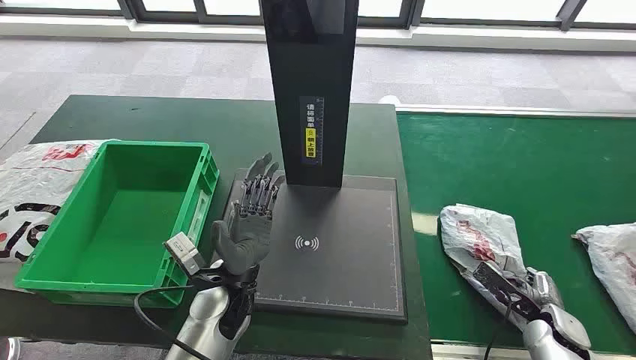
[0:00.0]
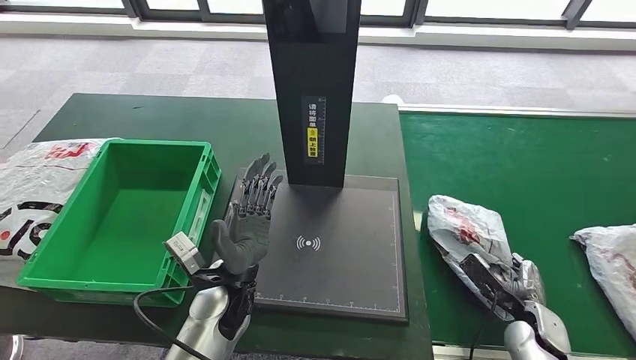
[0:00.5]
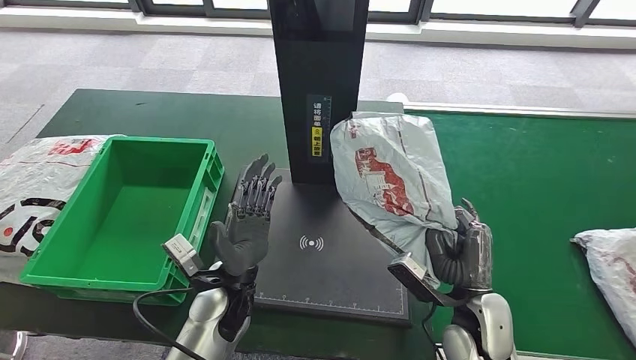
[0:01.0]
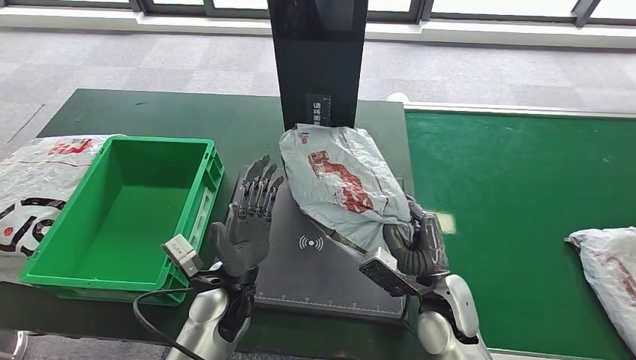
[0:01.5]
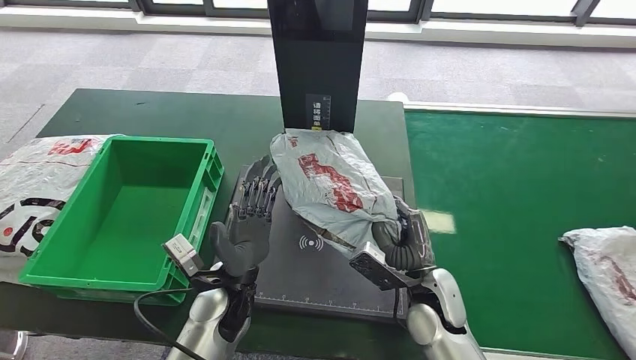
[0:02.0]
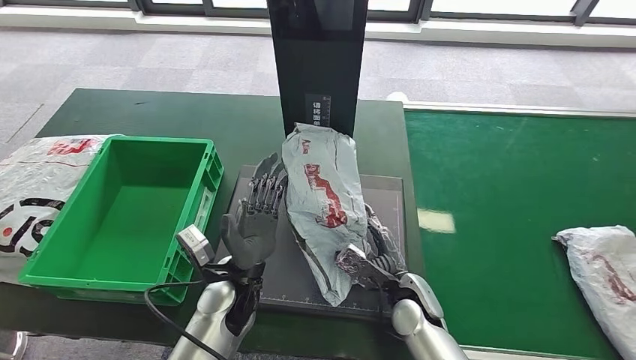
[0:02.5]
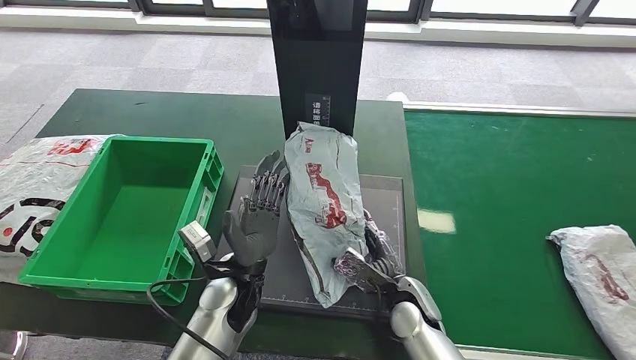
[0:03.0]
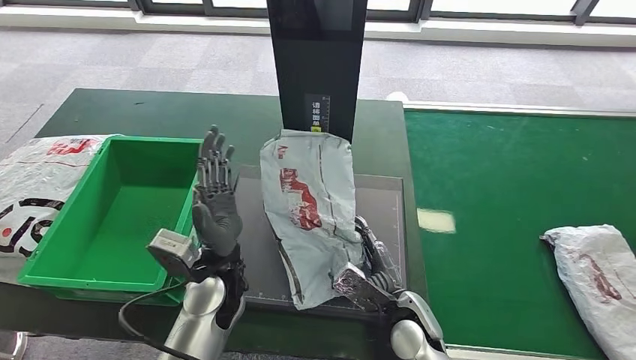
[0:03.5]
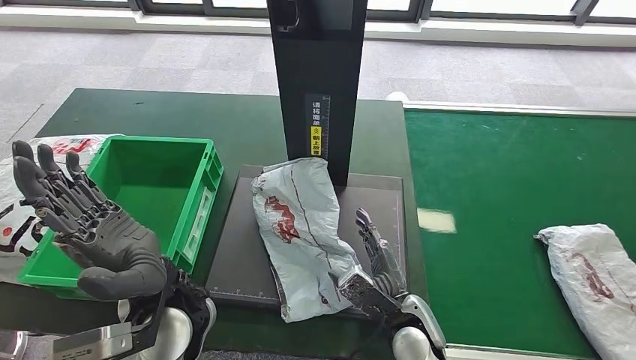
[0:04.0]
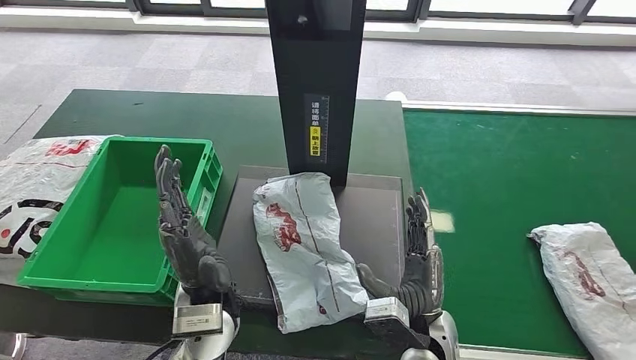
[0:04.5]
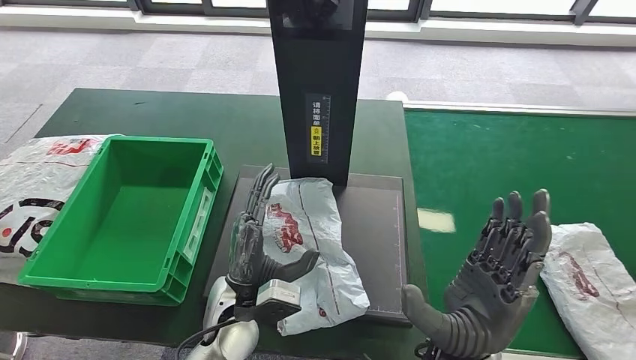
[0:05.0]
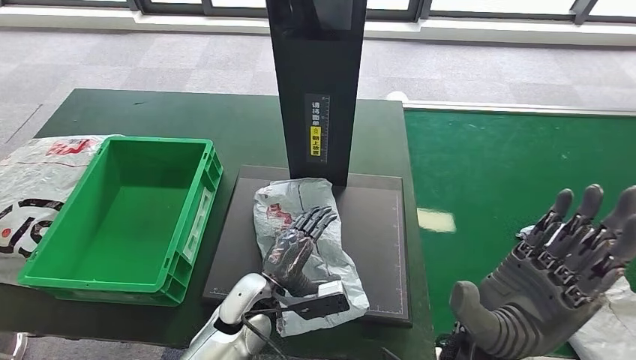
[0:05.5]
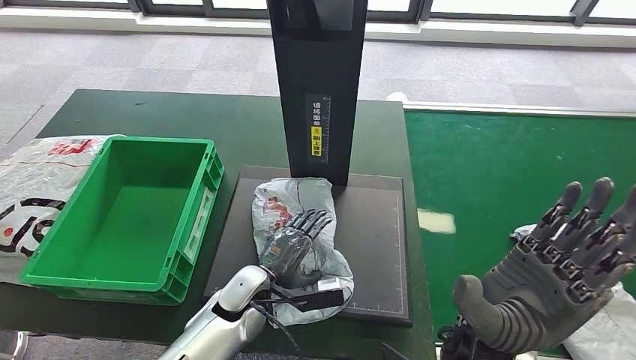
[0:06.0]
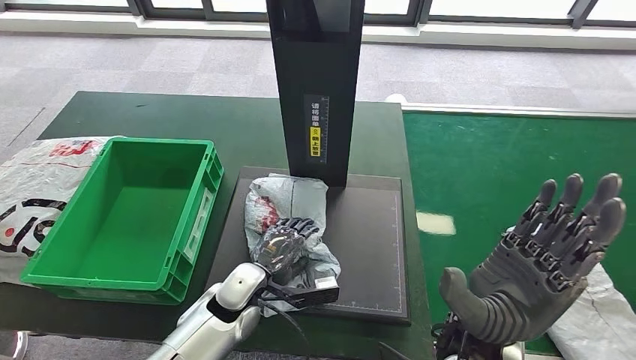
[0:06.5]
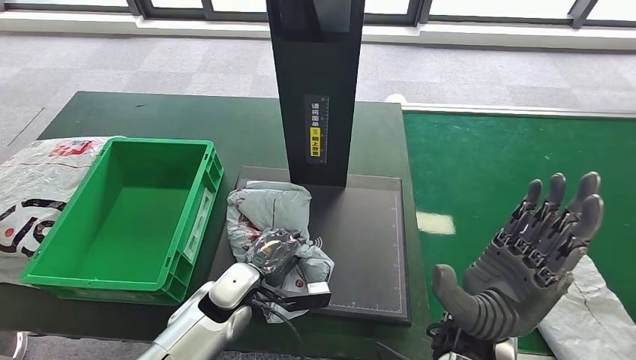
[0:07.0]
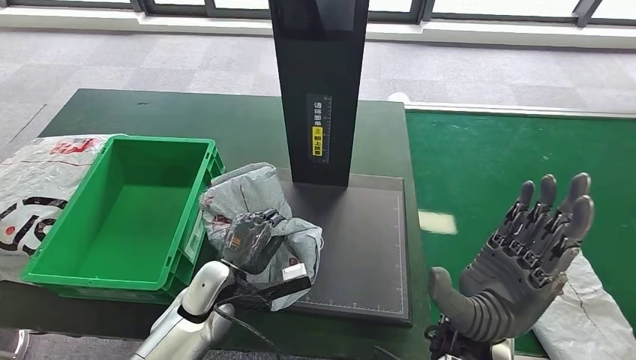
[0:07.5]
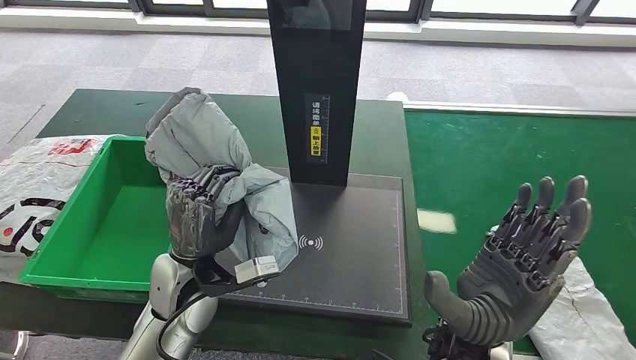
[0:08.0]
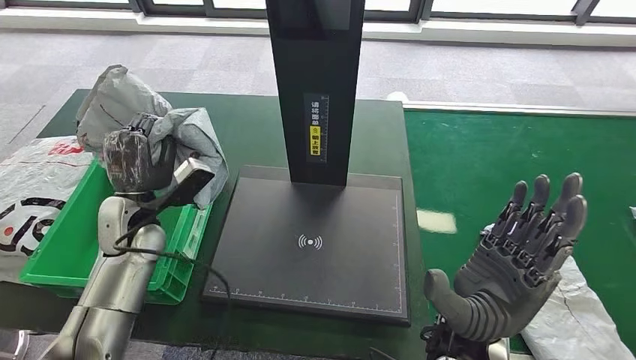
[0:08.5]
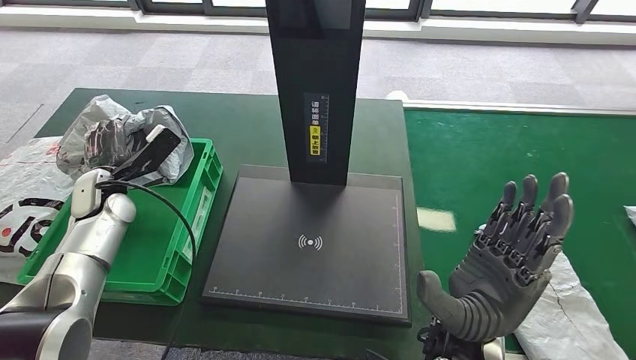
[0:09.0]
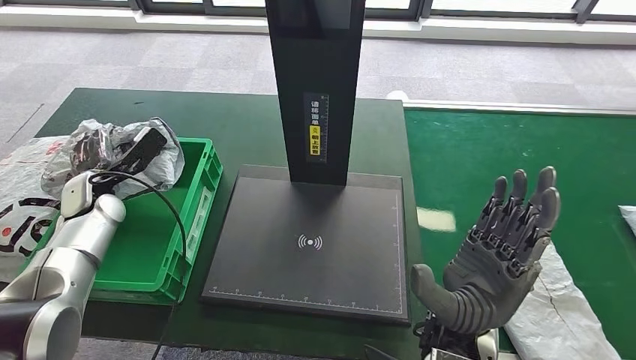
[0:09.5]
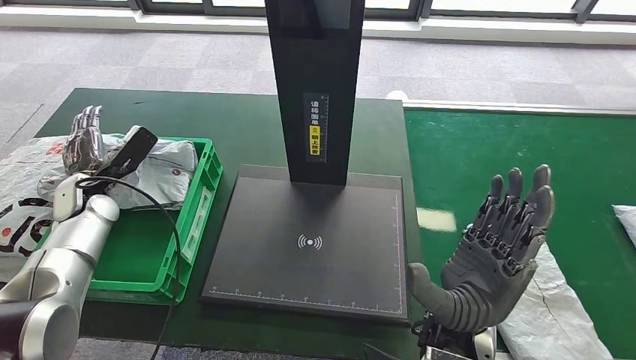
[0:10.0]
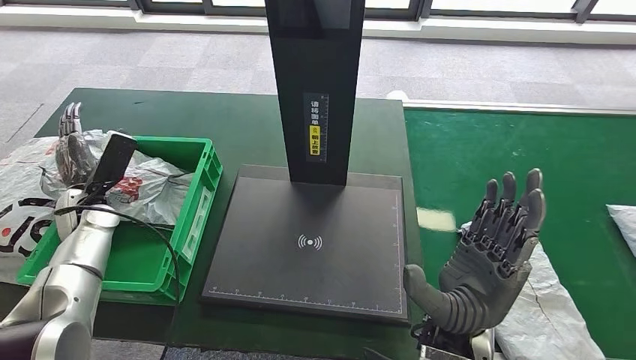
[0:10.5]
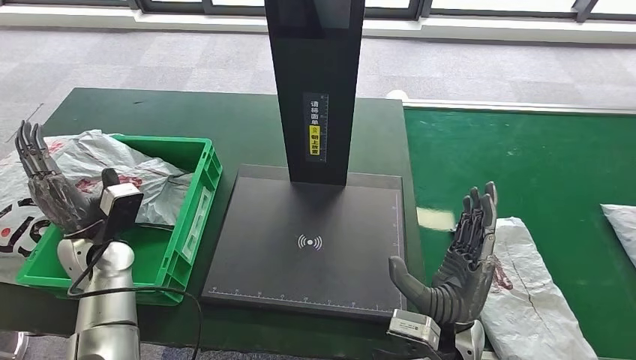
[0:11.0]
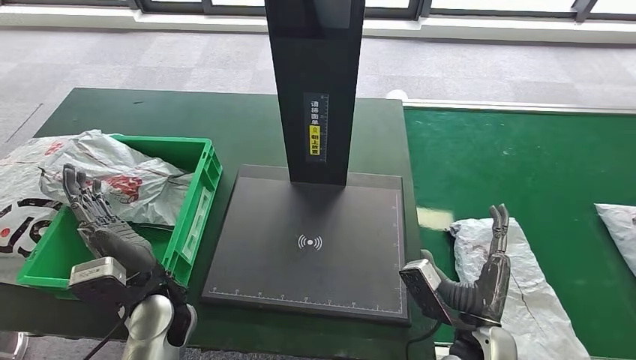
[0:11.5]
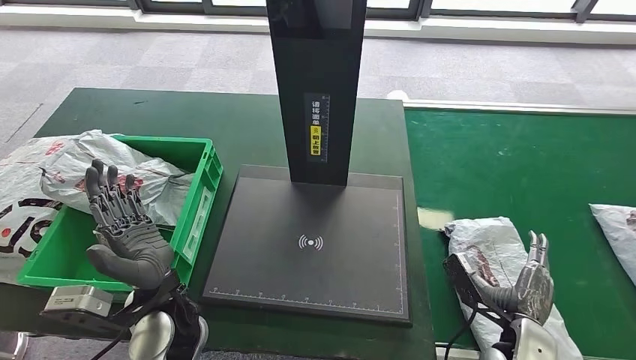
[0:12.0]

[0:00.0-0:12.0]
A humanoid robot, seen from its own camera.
Step, 0:00.0 to 0:01.0: Take the parcel off the conveyor belt.
Step, 0:01.5 to 0:04.5: Place the parcel onto the inbound machine.
Step, 0:05.0 to 0:08.0: Pick up the parcel from the inbound machine.
Step, 0:08.5 to 0:10.5: Put the parcel inside the courier box.
0:06.0 to 0:08.0: The left hand goes some 15 cm upward and to the left.

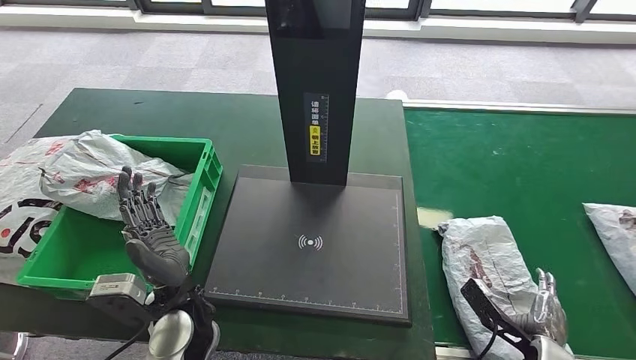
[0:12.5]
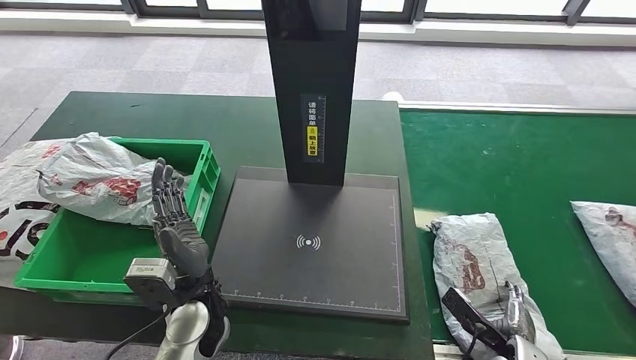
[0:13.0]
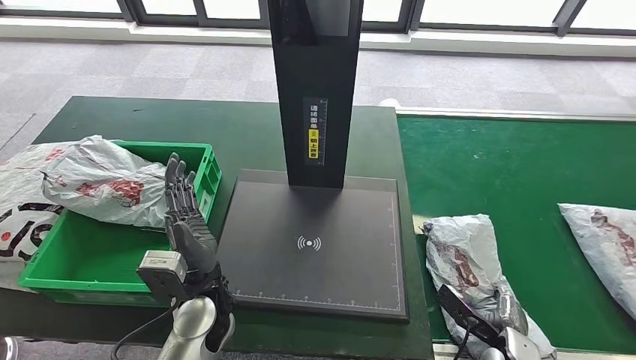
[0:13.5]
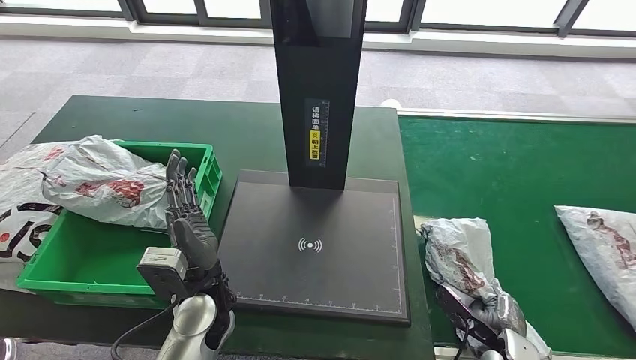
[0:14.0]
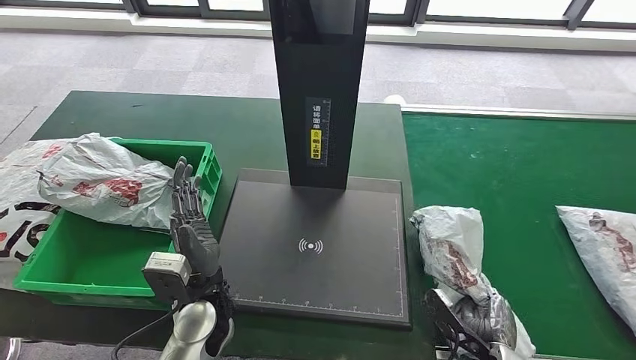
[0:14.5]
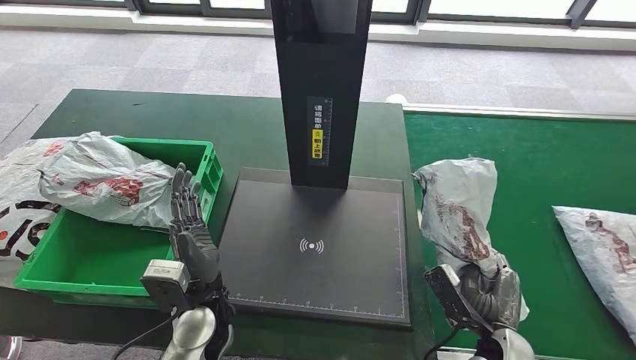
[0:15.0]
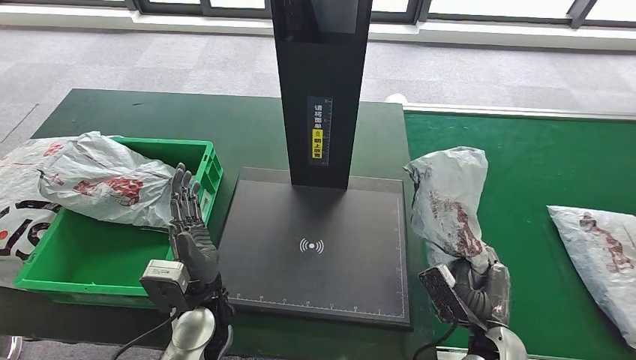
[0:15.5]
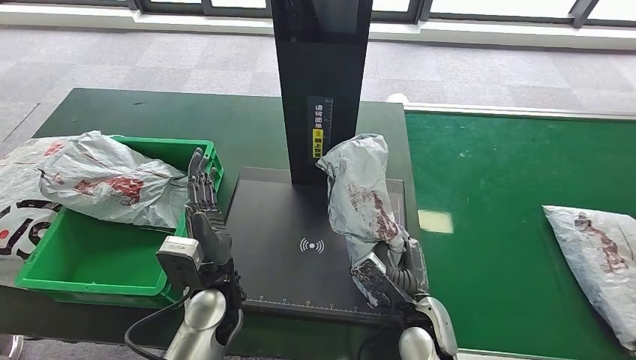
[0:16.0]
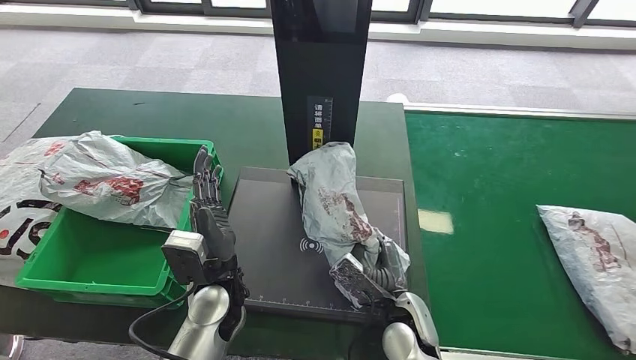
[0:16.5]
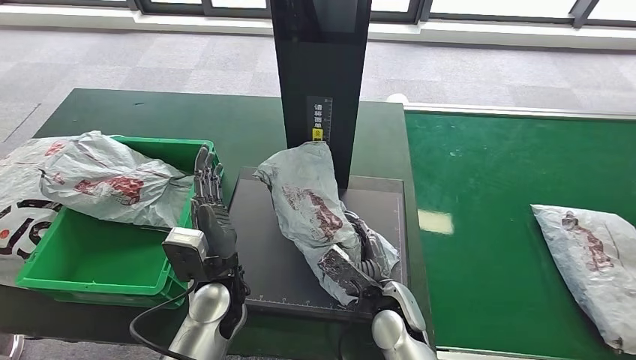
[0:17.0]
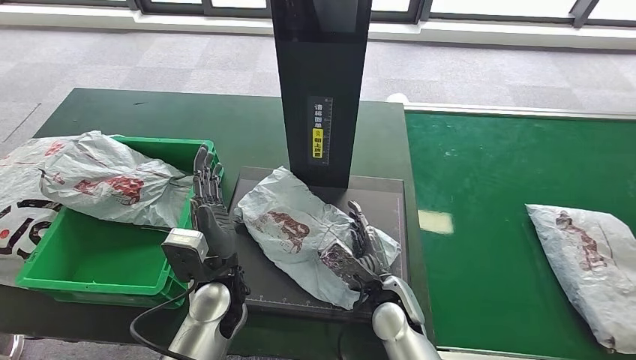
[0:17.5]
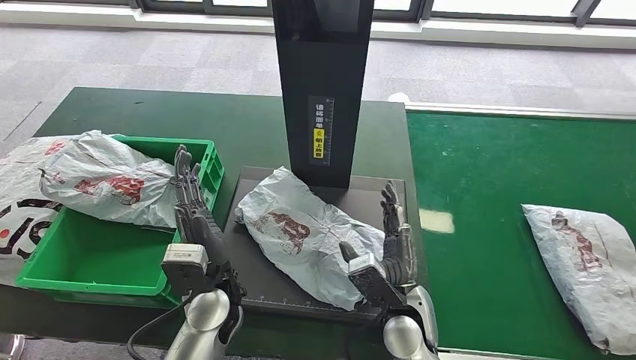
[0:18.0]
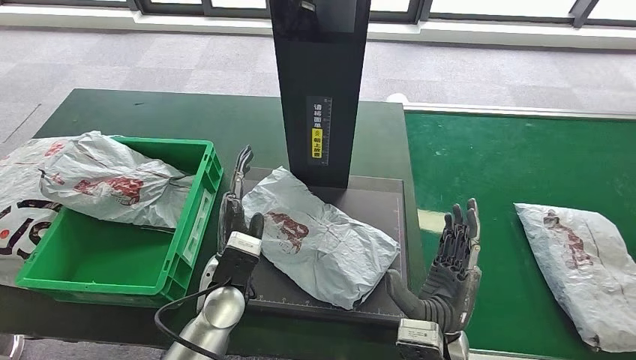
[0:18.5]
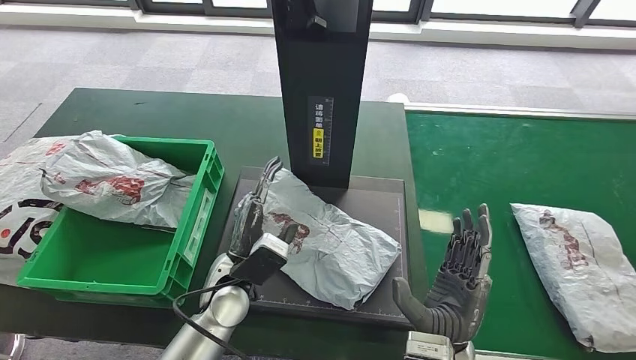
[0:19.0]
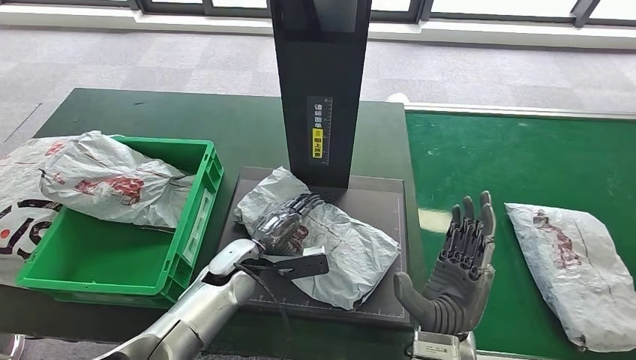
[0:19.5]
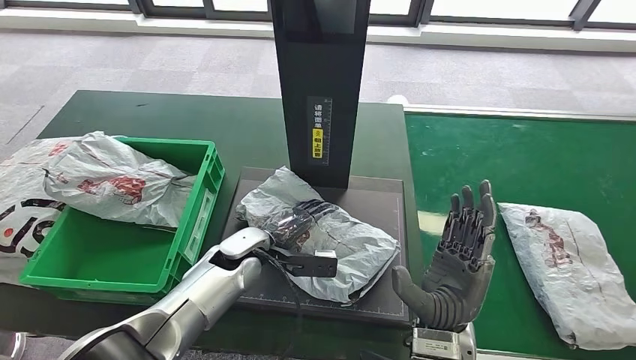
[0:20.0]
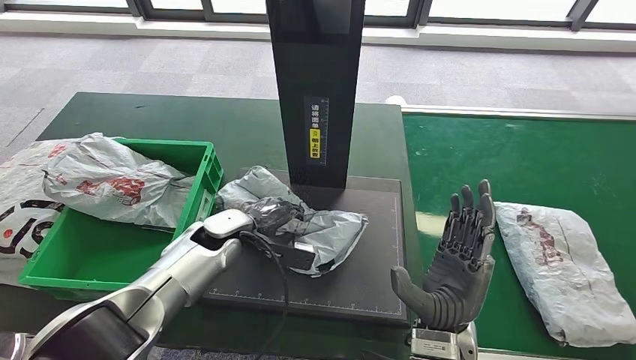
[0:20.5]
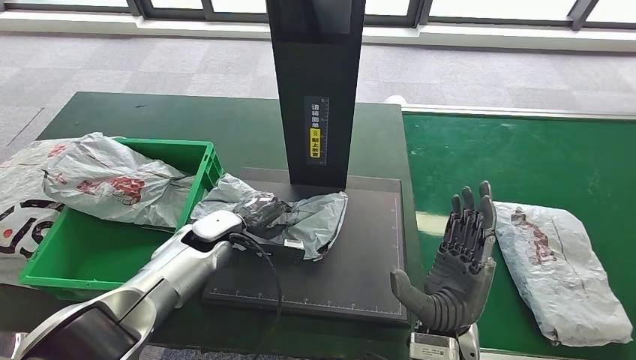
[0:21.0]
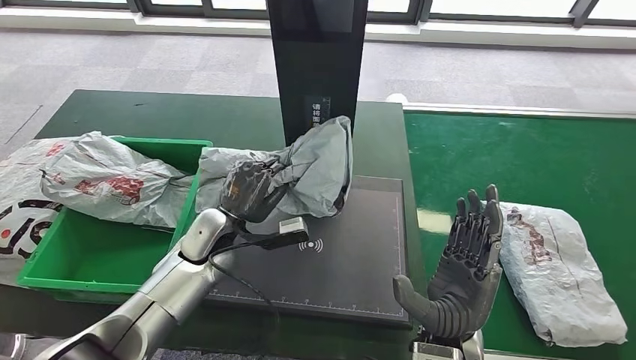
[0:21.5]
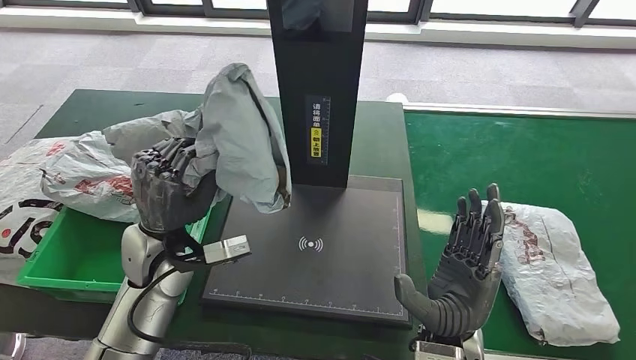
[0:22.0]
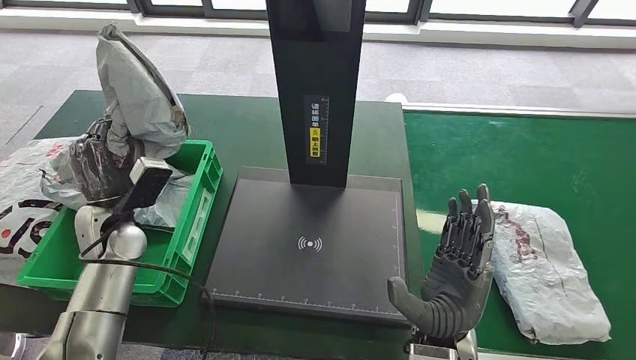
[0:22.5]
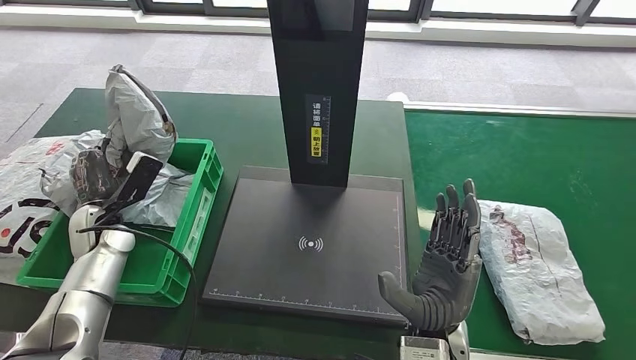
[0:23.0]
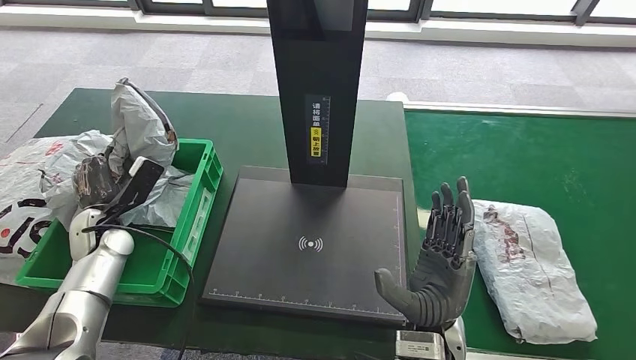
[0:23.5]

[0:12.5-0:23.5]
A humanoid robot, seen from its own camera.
Step, 0:12.5 to 0:15.0: Pick up the parcel from the conveyor belt.
Step, 0:15.5 to 0:18.0: Place the parcel onto the inbound machine.
Step, 0:18.5 to 0:22.0: Pick up the parcel from the inbound machine.
